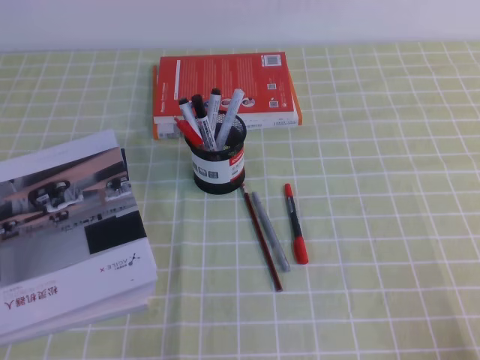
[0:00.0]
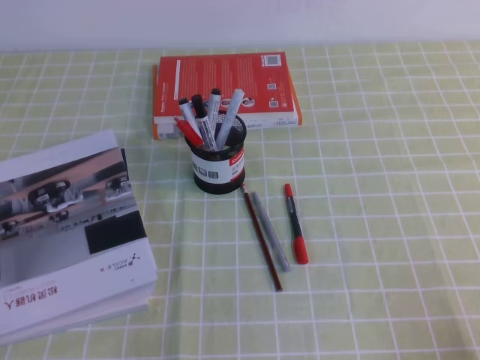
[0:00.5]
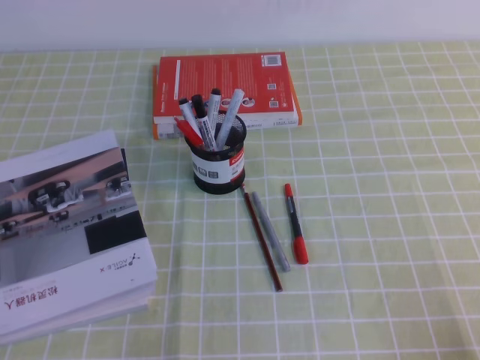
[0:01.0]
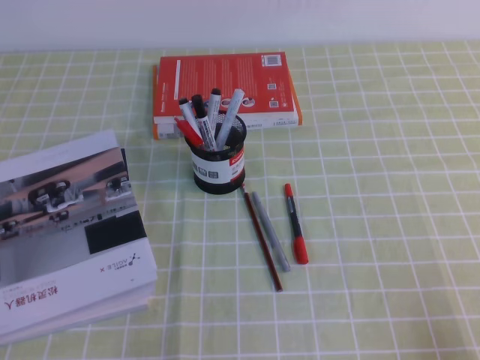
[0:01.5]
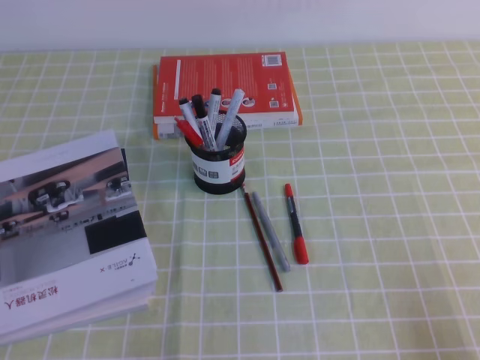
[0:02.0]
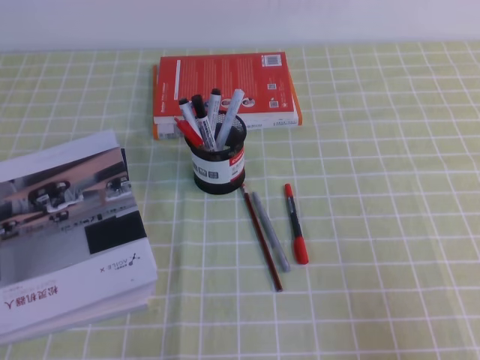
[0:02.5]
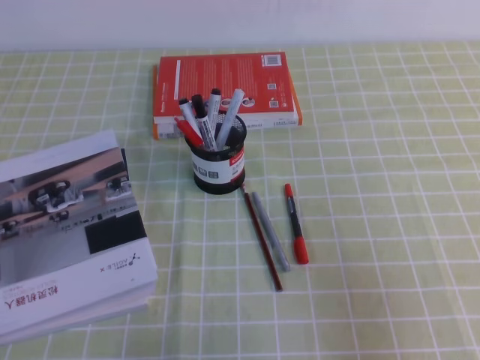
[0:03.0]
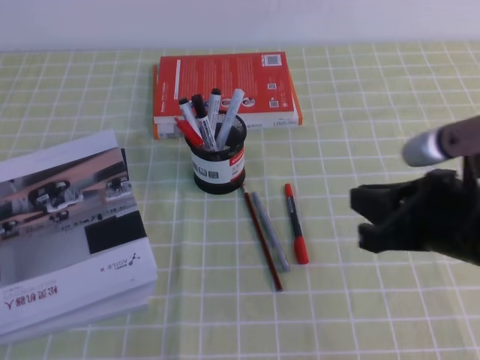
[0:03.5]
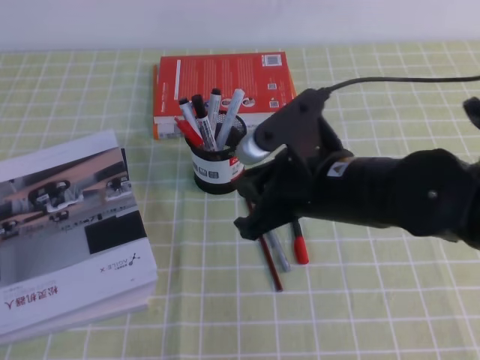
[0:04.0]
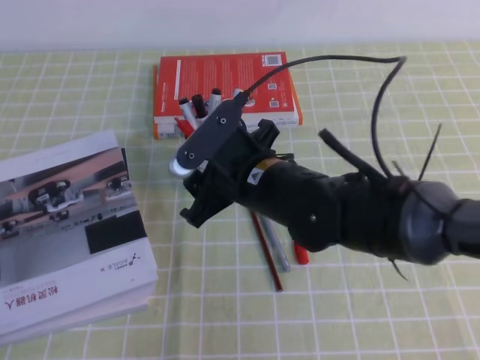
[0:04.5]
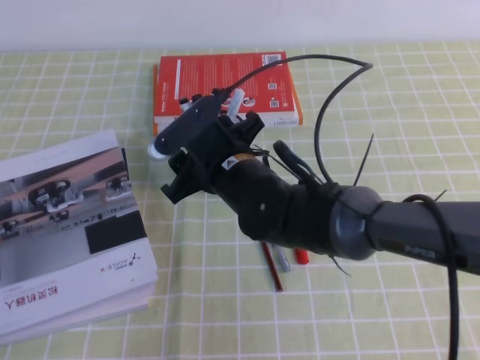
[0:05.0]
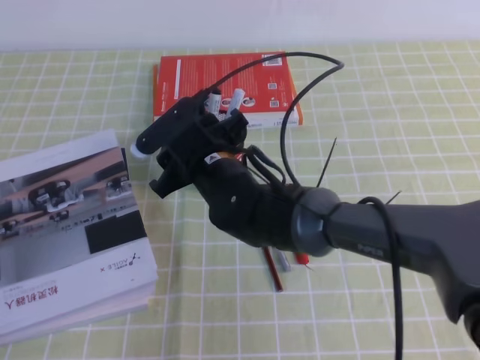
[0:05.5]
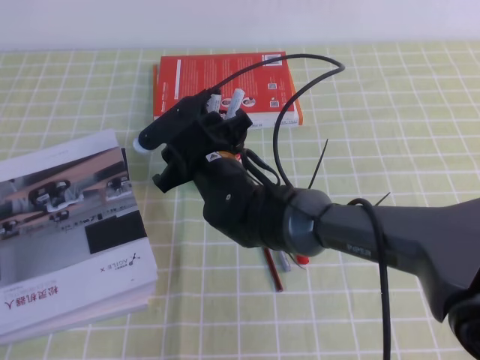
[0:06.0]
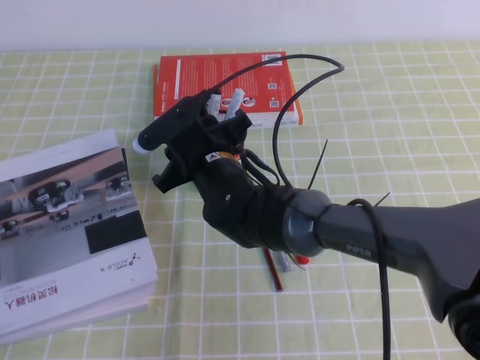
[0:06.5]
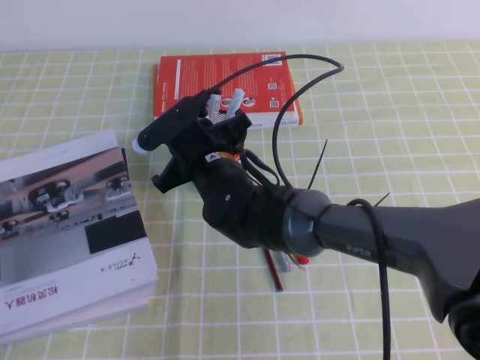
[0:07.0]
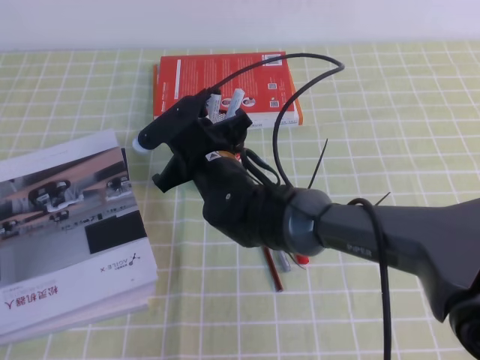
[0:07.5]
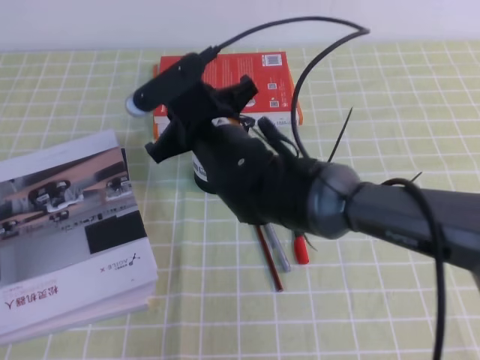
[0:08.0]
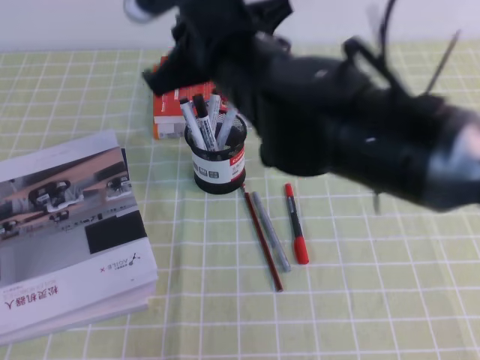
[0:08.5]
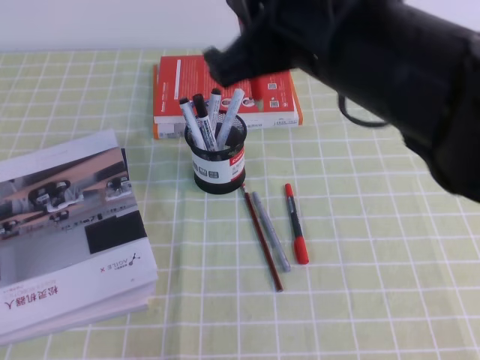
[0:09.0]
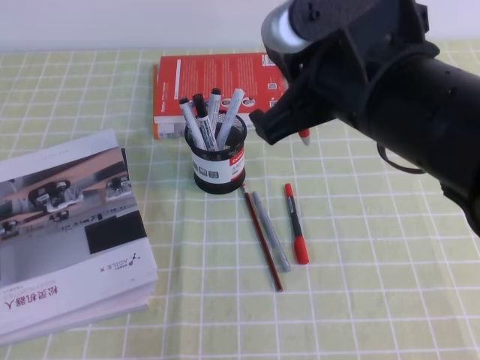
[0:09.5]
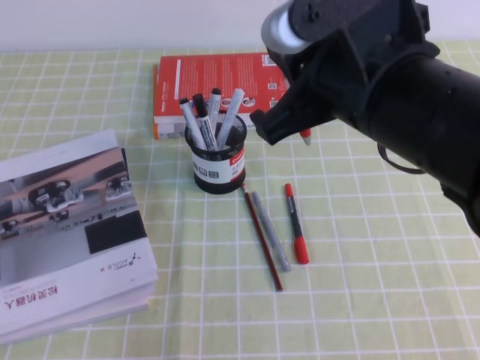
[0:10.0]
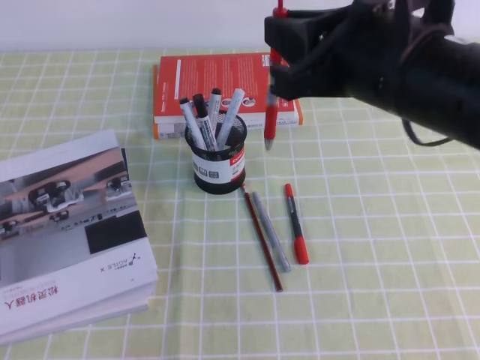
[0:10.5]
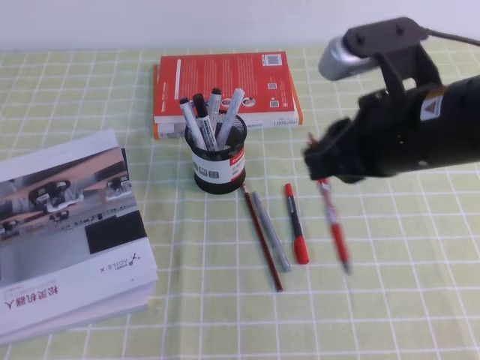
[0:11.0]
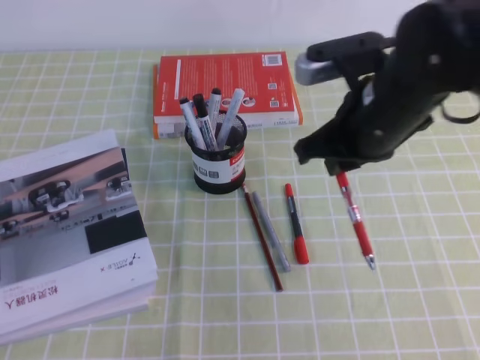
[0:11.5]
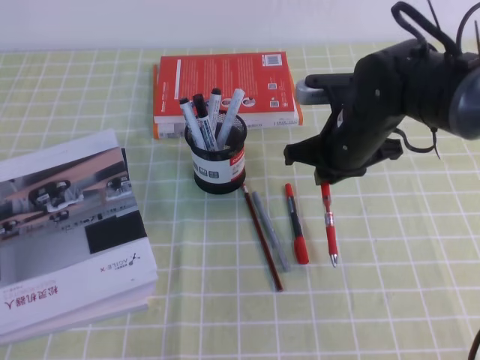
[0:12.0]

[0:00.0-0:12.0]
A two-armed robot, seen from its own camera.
0:02.0 to 0:04.0: The right gripper shifts about 30 cm to the left and forward.
0:04.0 to 0:06.0: The right gripper heads to the left, forward and downward, covering about 20 cm, and opens up.
0:06.0 to 0:08.0: The right gripper is displaced upward by roughly 5 cm, and closes up.
0:08.0 to 0:10.0: The right gripper moves to the right, upward and backward, about 25 cm.
0:10.0 to 0:12.0: The right gripper shifts approximately 20 cm downward and forward.

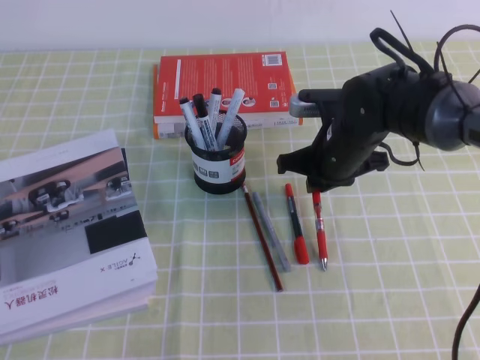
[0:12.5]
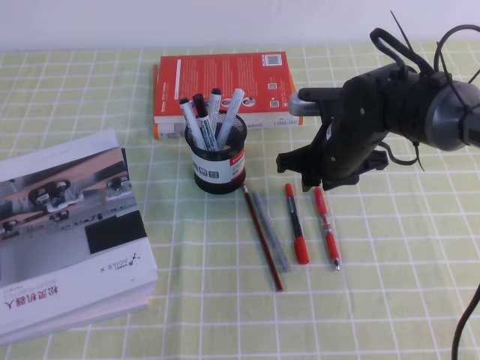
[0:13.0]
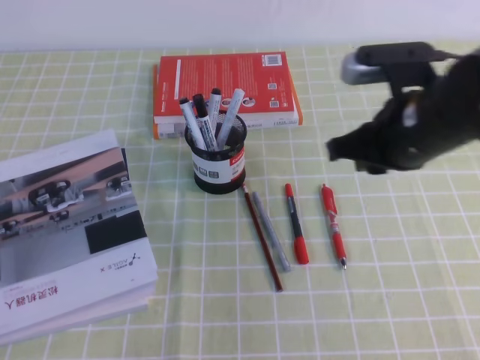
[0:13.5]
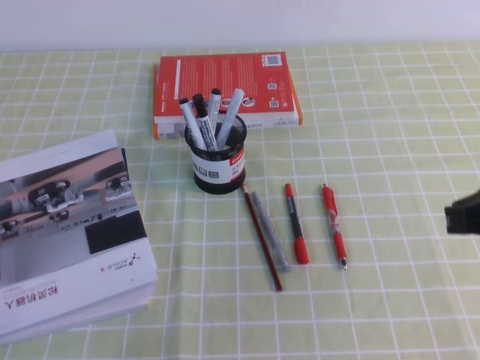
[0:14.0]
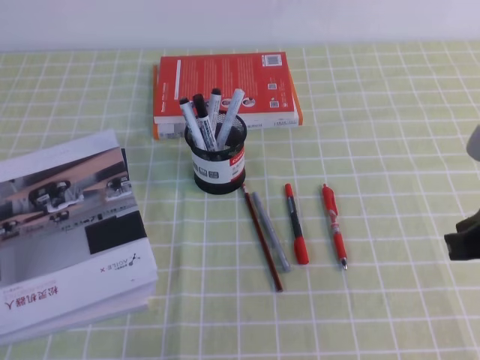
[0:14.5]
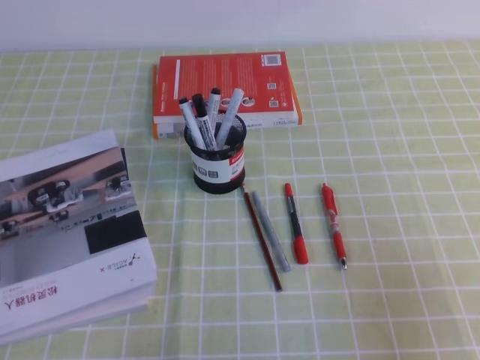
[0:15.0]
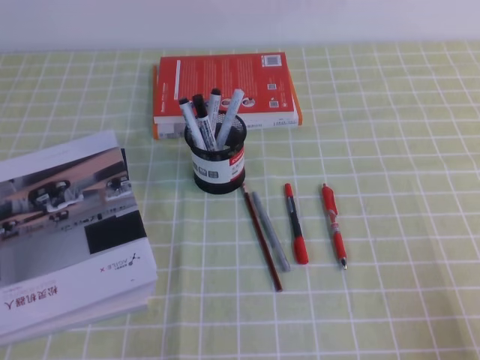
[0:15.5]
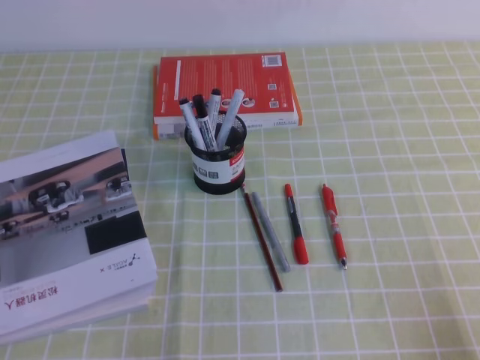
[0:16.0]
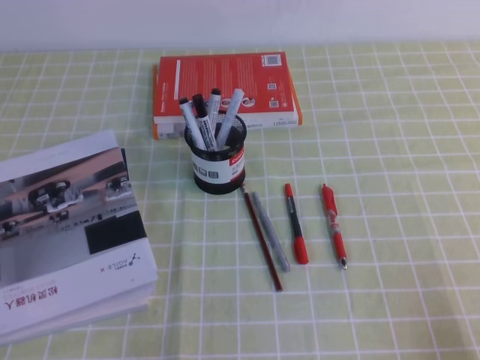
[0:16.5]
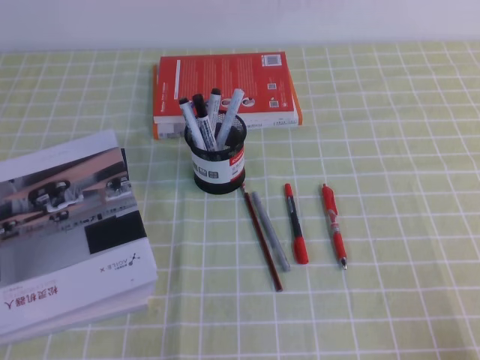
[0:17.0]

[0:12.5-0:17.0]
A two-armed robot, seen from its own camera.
Step, 0:12.5 to 0:17.0: Pick up the pen from the pen holder.
0:12.5 to 0:14.5: The right gripper goes roughly 25 cm backward, to the right and upward.
0:14.5 to 0:17.0: The right gripper is displaced downward, backward and to the right by about 20 cm.

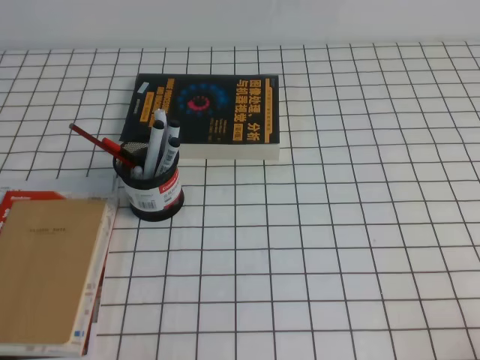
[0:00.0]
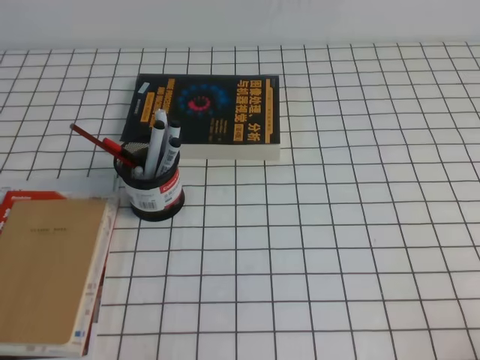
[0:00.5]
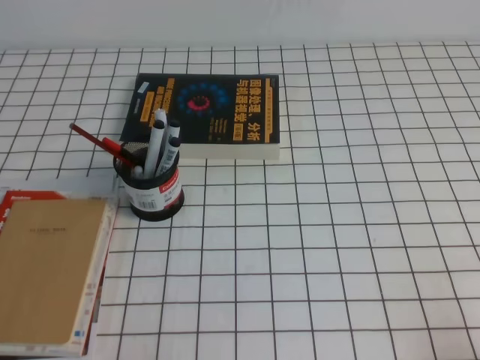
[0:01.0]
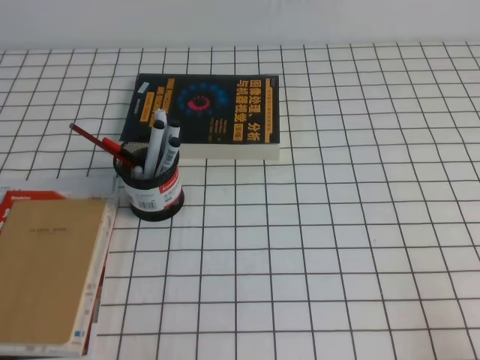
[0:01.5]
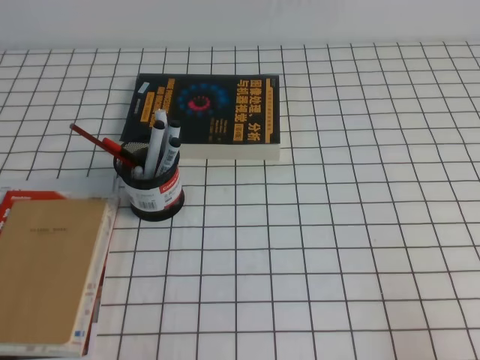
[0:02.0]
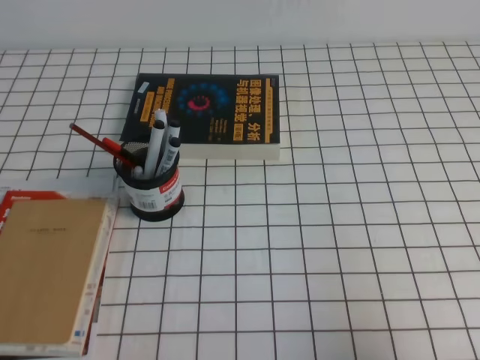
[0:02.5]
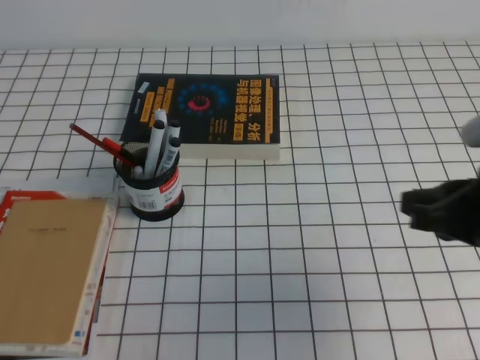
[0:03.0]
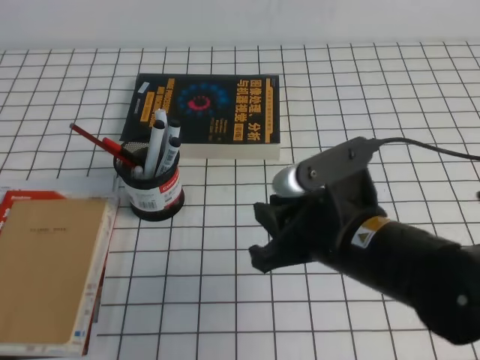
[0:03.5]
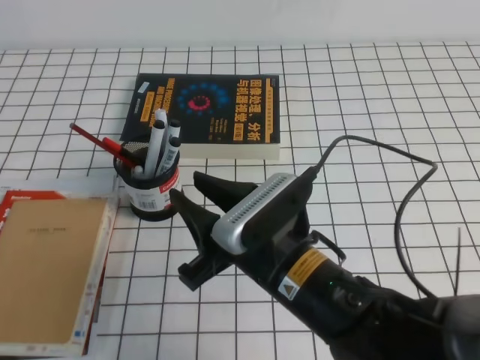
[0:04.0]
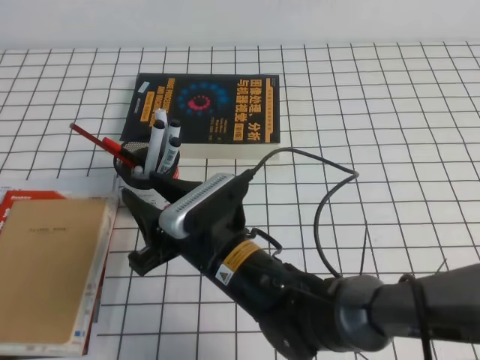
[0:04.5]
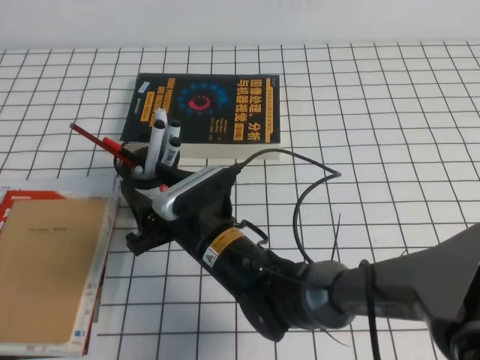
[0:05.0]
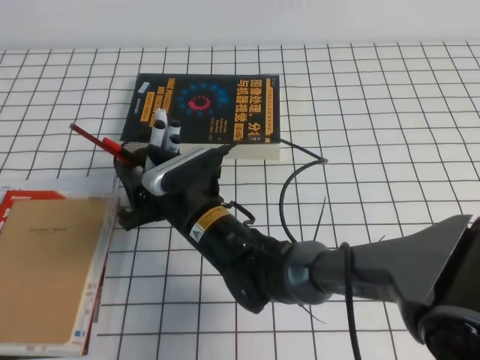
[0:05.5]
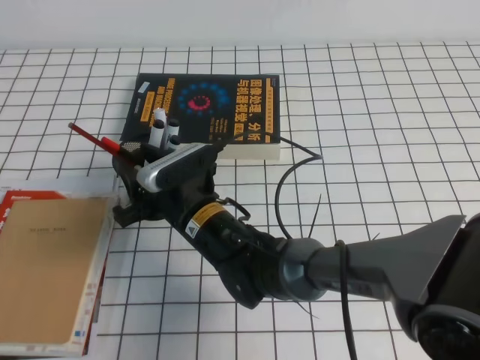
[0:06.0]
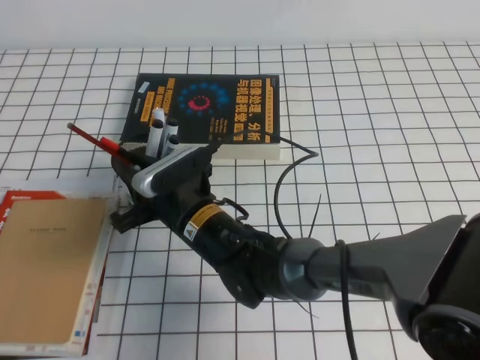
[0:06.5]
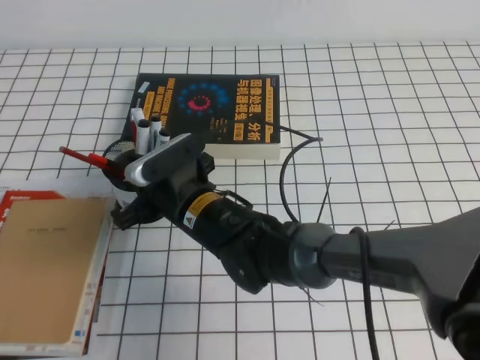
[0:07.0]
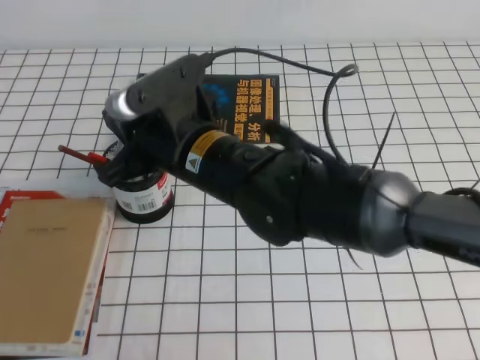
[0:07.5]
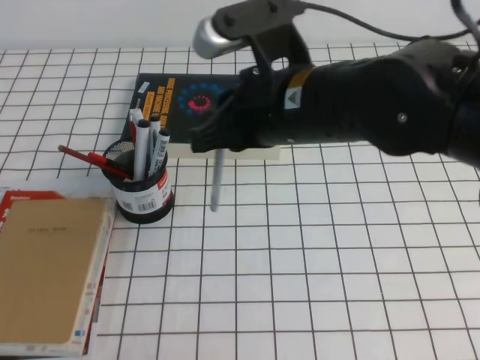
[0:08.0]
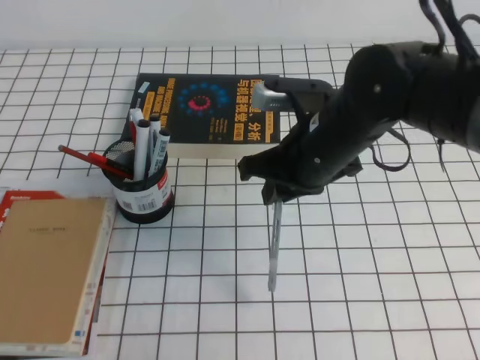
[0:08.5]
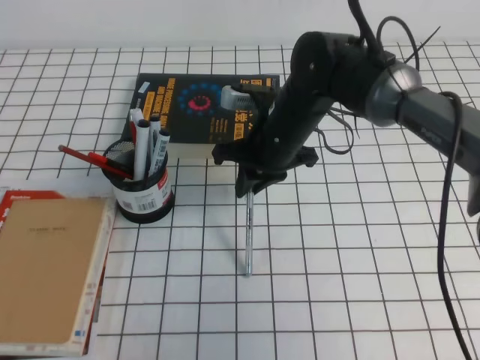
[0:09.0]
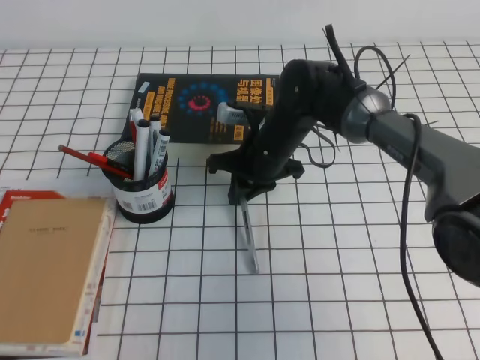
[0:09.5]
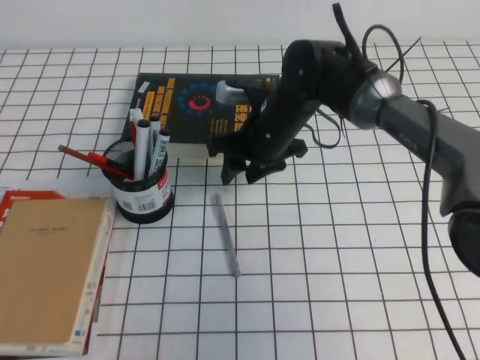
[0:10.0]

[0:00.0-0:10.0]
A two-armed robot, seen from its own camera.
0:02.0 to 0:04.0: The right gripper goes approximately 30 cm to the left and forward, and opens up.
0:04.0 to 0:06.0: The right gripper travels forward, to the left and downward by about 15 cm.
0:06.0 to 0:08.0: The right gripper shifts some 20 cm upward and to the right, and closes its fingers.
0:08.0 to 0:10.0: The right gripper shifts about 20 cm forward and downward, and opens up.
